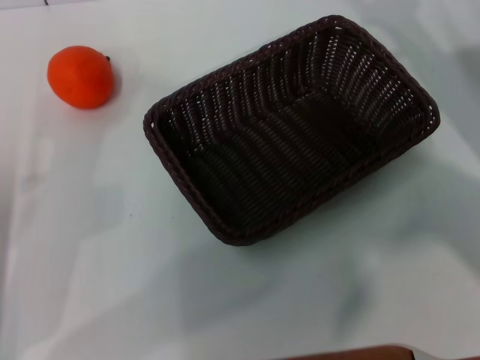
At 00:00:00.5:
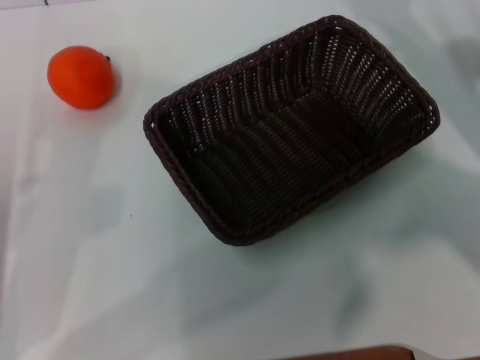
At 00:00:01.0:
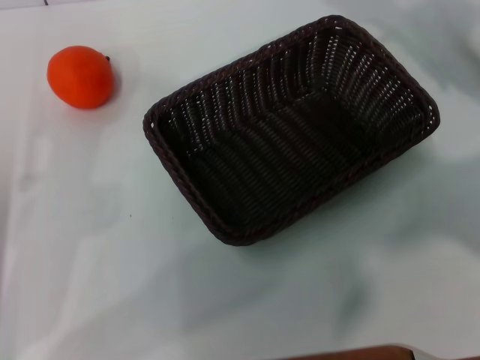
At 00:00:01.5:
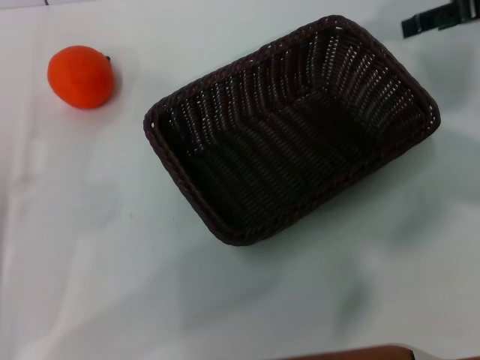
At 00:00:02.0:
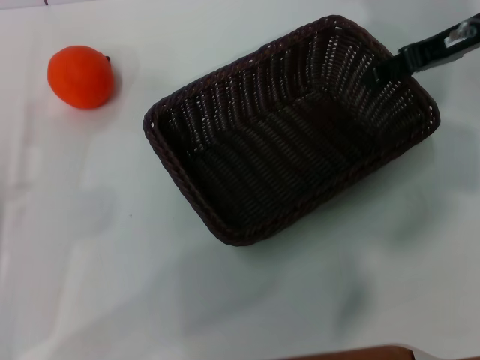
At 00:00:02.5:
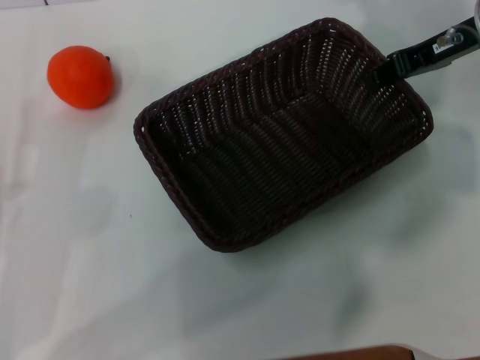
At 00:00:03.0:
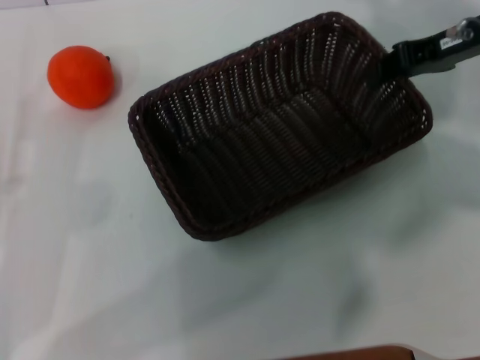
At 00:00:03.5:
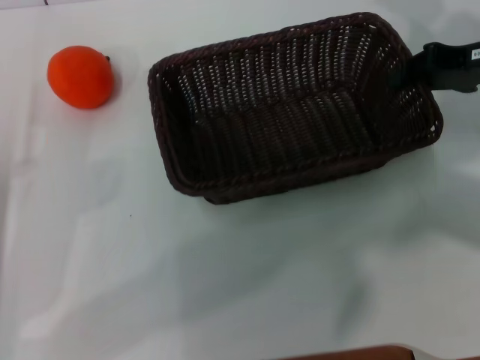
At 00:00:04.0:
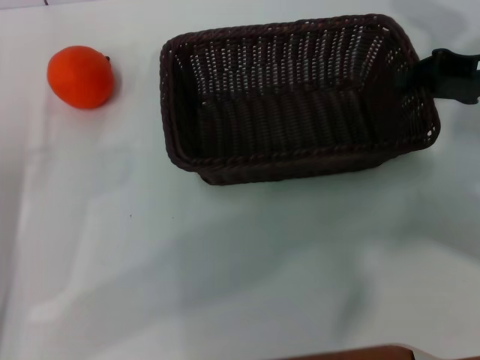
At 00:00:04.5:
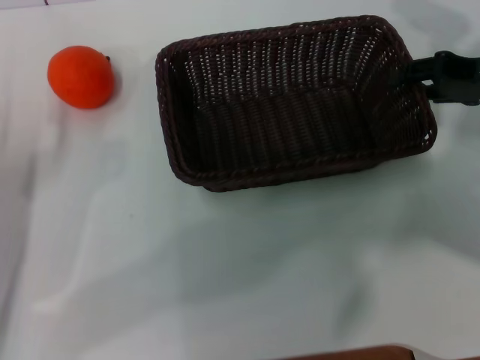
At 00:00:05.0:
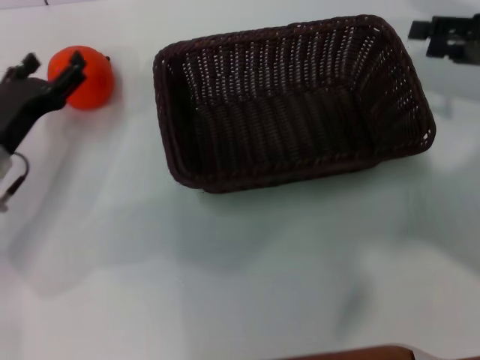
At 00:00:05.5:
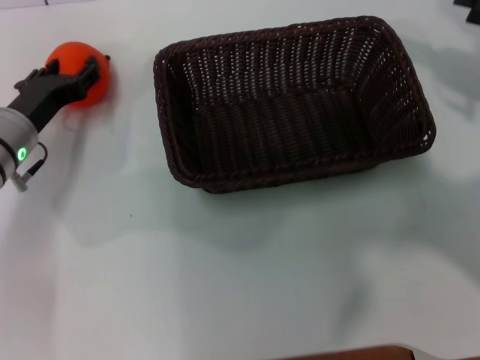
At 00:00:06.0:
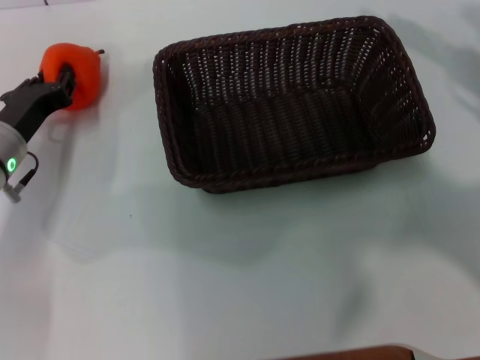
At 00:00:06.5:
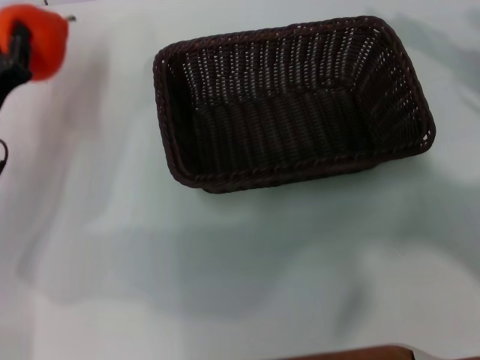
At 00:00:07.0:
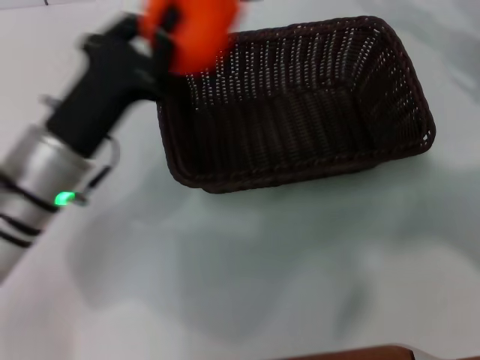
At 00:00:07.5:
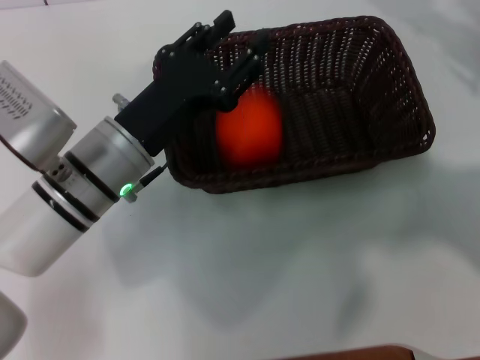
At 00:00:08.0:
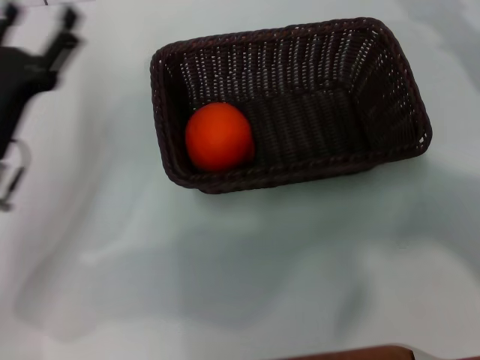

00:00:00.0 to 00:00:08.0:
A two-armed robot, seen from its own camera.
Task of the whole recording: the right gripper pick up the black basket and place it horizontally in the middle of the table, the left gripper pick up the orange and place it into the black basket.
Step, 00:00:00.0 to 00:00:03.0: Pick up the dark basket with the right gripper.
Step, 00:00:03.5 to 00:00:04.5: Place the dark basket in the center of view with the right gripper.
Step, 00:00:05.0 to 00:00:06.5: Pick up the orange with the left gripper.
Step, 00:00:07.0 to 00:00:07.5: Place the orange into the dark basket with the left gripper.
00:00:00.0 to 00:00:02.0: The right gripper shifts approximately 10 cm forward and upward.
00:00:02.0 to 00:00:04.0: The right gripper shifts about 5 cm backward, and closes up.
00:00:04.0 to 00:00:06.0: The left gripper goes approximately 10 cm forward, and closes up. Meanwhile the right gripper goes about 10 cm to the right and backward, and opens.
00:00:06.0 to 00:00:08.0: The left gripper heads backward, covering roughly 5 cm, moves some 10 cm to the right and comes back, and opens up.
